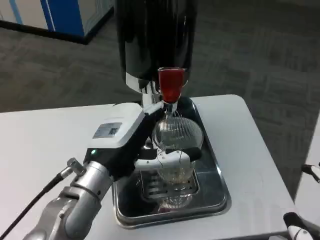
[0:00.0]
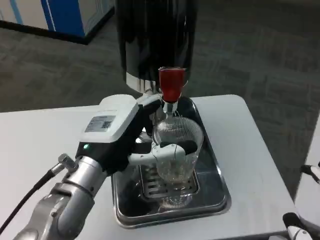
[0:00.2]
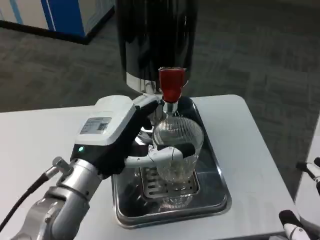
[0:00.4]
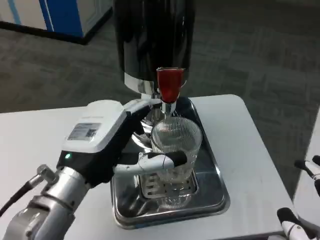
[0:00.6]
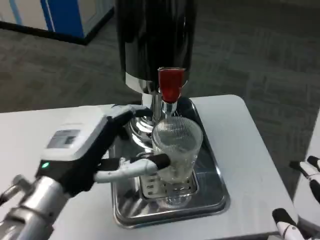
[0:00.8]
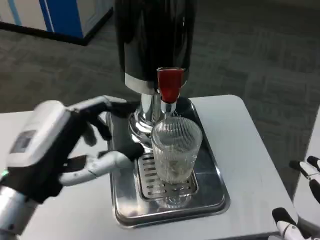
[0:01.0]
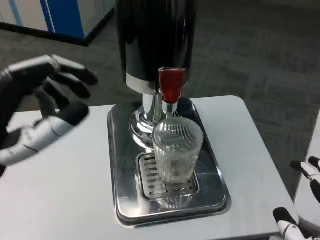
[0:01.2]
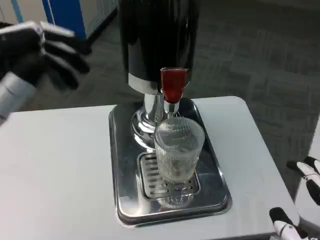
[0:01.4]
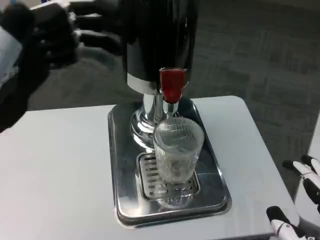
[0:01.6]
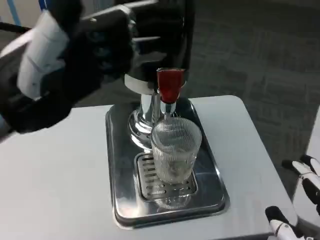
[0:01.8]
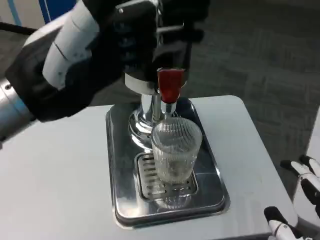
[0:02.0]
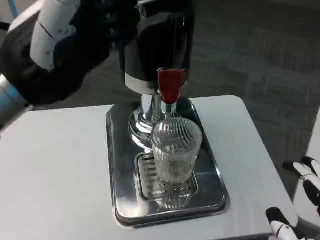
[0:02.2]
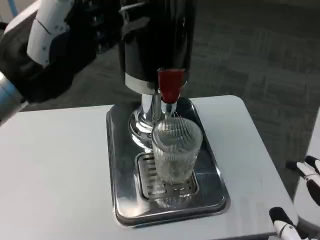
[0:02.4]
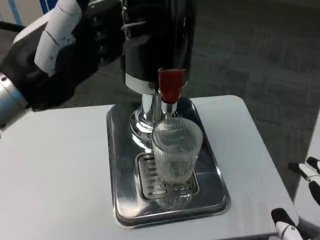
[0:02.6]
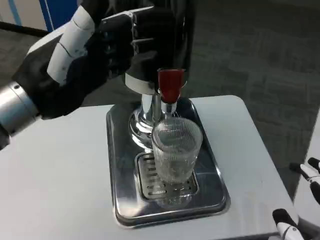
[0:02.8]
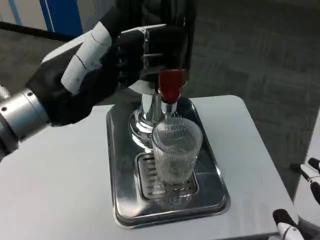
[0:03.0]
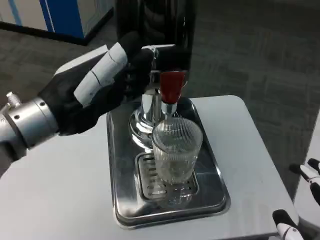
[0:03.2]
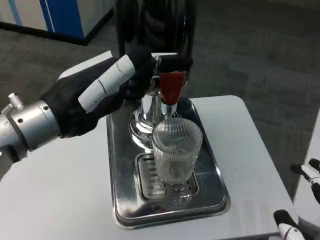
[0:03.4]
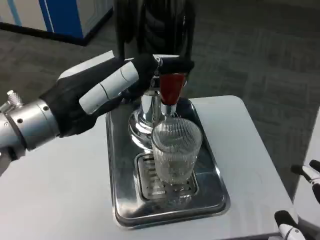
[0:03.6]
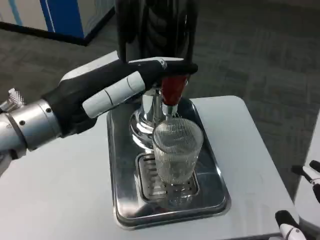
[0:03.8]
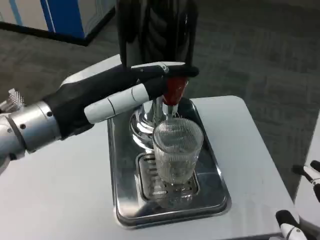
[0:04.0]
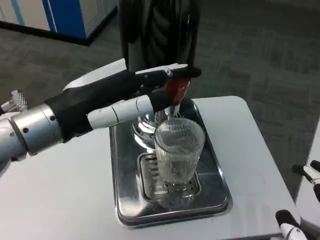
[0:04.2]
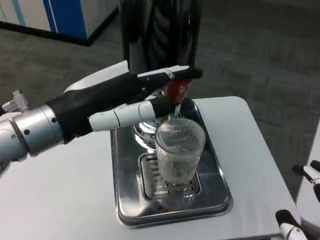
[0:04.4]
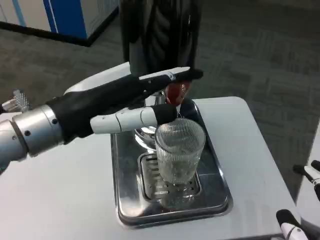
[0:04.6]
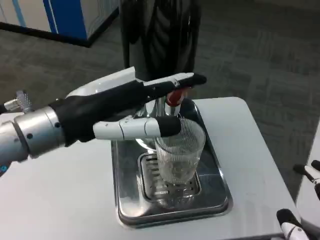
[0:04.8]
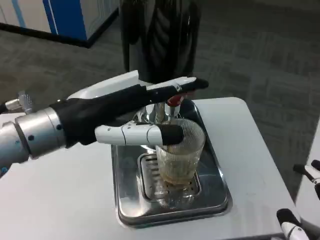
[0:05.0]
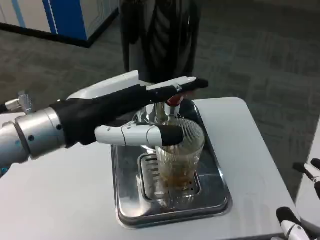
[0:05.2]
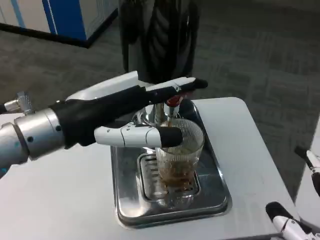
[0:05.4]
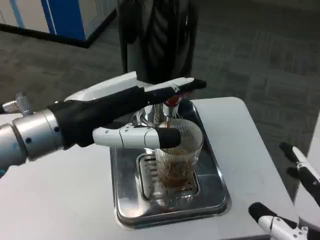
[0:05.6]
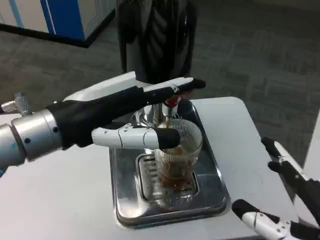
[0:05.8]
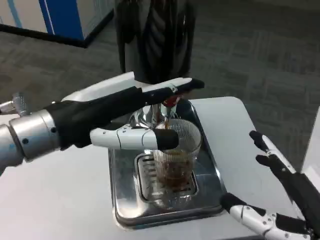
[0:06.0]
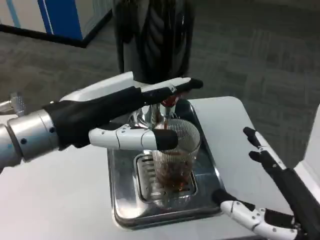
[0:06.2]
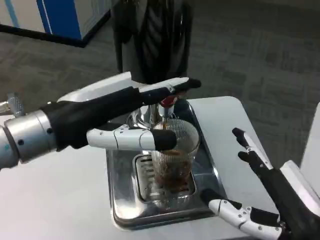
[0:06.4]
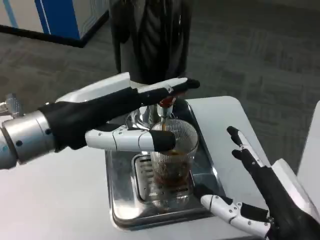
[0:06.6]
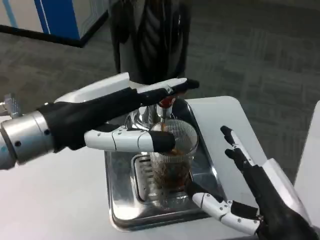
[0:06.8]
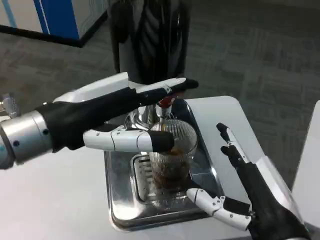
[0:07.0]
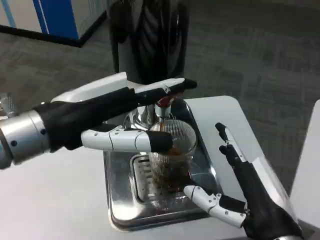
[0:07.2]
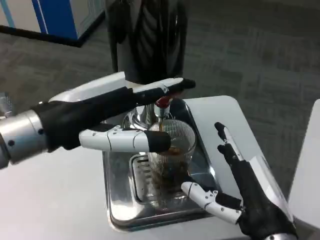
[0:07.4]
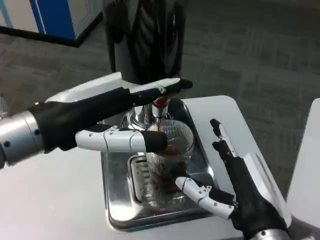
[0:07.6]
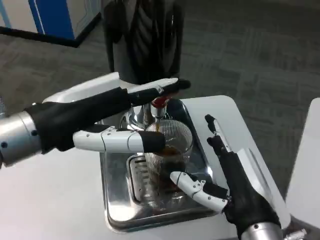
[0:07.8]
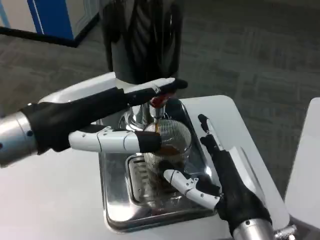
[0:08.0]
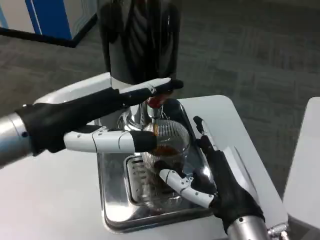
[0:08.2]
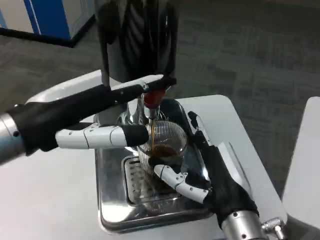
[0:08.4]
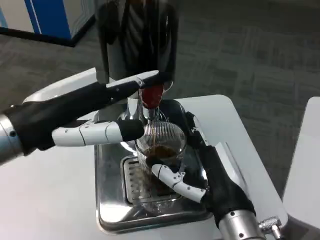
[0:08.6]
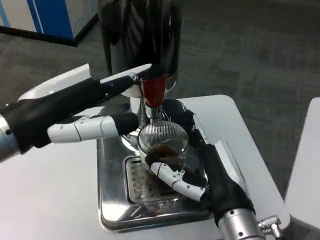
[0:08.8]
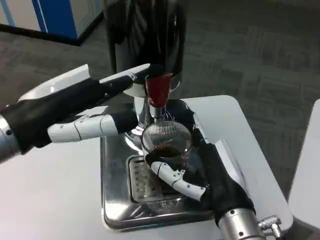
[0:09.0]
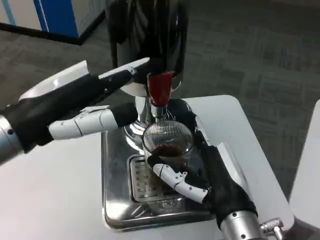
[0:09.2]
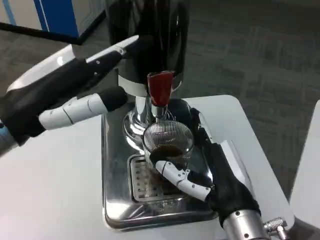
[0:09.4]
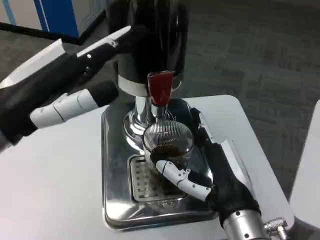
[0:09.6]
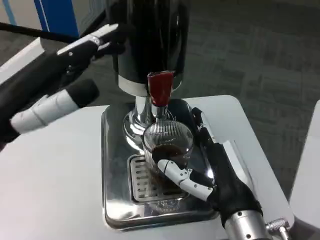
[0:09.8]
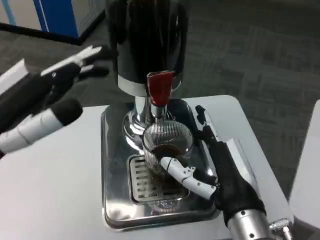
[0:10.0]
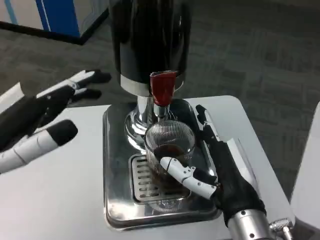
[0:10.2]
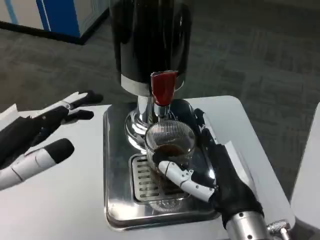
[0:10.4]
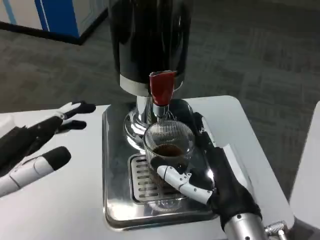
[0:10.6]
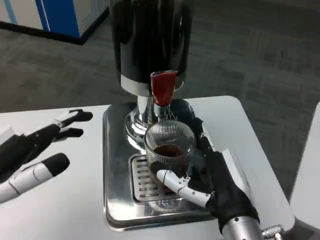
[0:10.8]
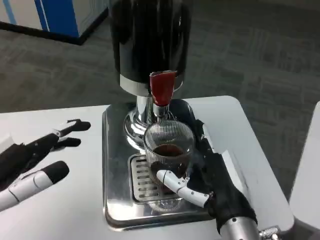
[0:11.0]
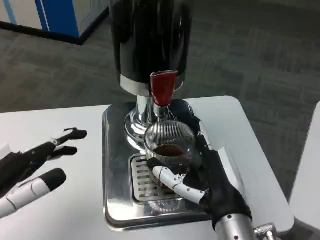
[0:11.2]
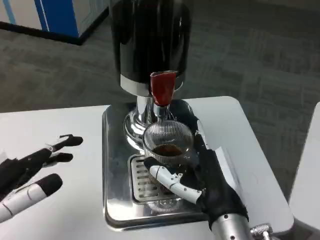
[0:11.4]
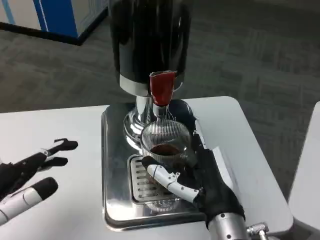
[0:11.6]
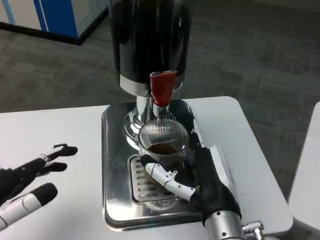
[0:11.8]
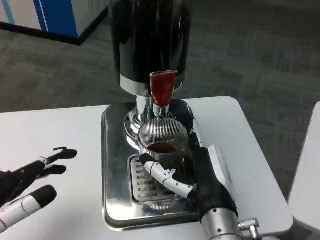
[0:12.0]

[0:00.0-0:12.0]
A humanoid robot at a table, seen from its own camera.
Task of the whole recording: Grasp the cup under the faucet to collect the drink, then remove the cup.
0:00.0 to 0:01.6: The left hand goes some 20 cm upward, to the left and backward.
0:01.6 to 0:03.0: The left hand goes approximately 5 cm forward.
0:04.4 to 0:06.0: The right hand shifts approximately 5 cm forward.
0:06.0 to 0:07.6: The right hand travels to the left and forward by about 10 cm.
0:09.0 to 0:10.4: The left hand moves downward, about 5 cm.
0:10.4 to 0:12.0: The left hand ends up roughly 5 cm from where it was.

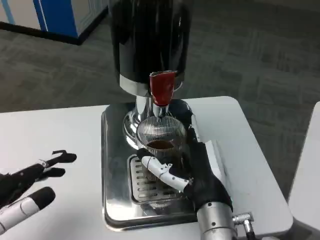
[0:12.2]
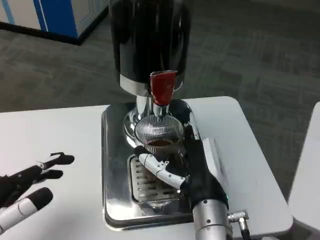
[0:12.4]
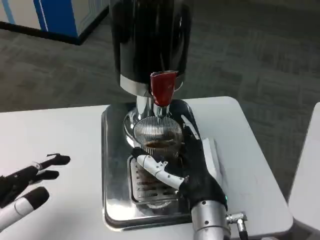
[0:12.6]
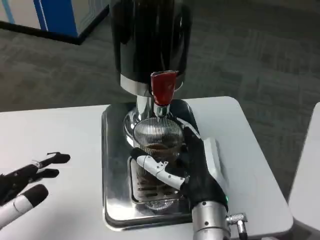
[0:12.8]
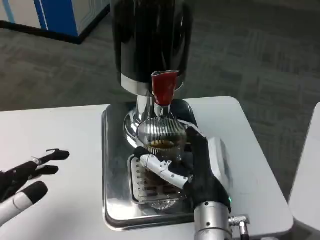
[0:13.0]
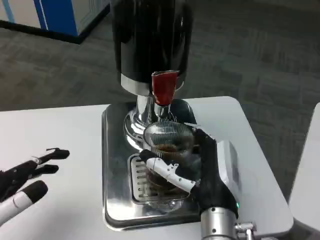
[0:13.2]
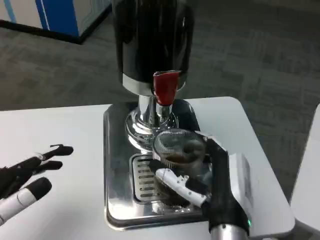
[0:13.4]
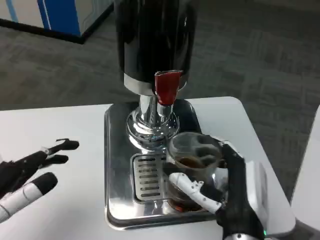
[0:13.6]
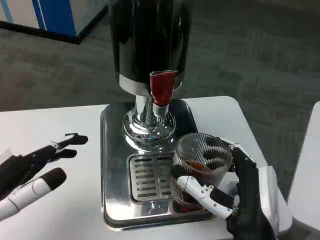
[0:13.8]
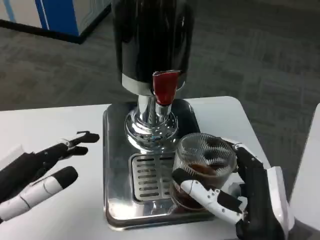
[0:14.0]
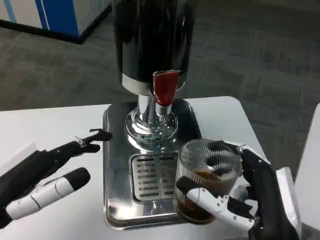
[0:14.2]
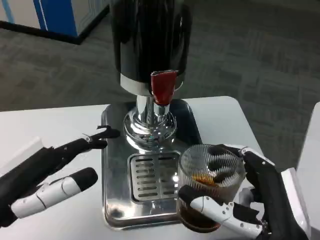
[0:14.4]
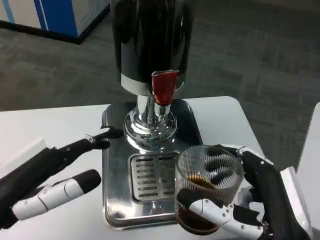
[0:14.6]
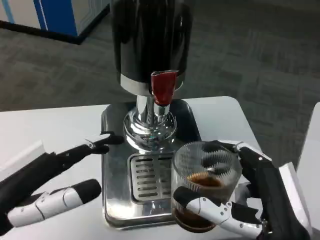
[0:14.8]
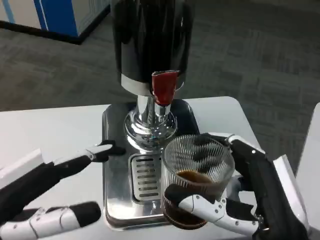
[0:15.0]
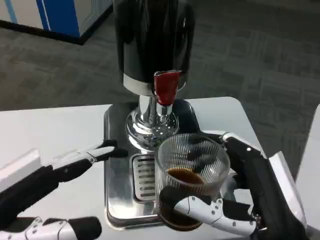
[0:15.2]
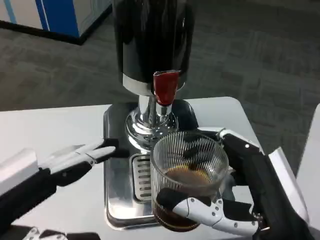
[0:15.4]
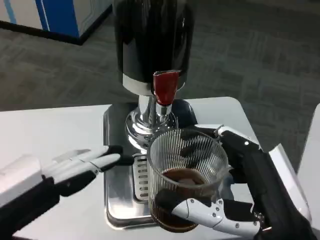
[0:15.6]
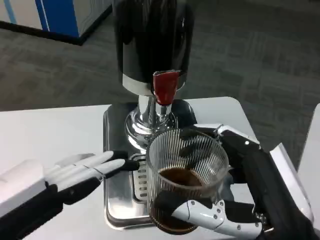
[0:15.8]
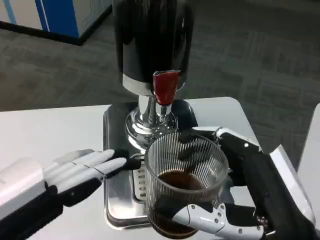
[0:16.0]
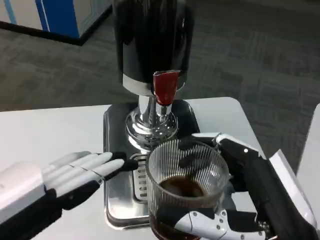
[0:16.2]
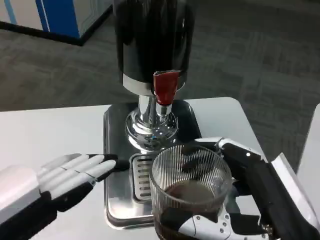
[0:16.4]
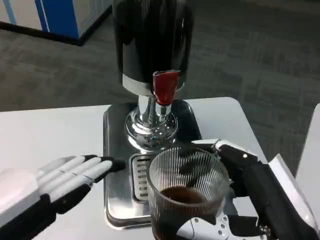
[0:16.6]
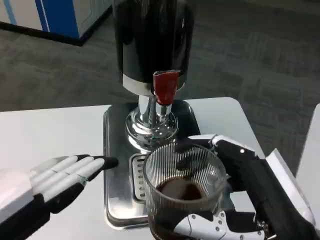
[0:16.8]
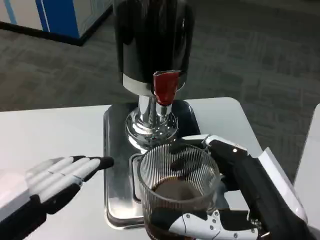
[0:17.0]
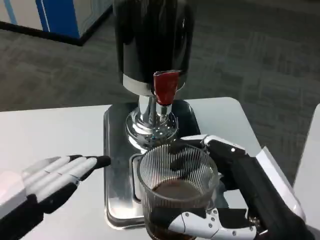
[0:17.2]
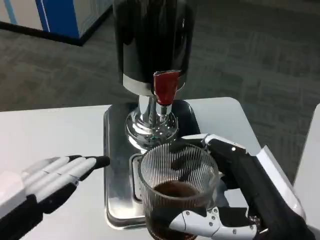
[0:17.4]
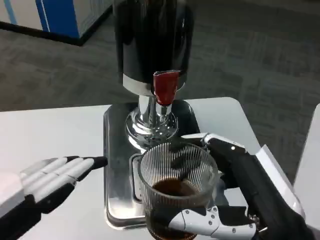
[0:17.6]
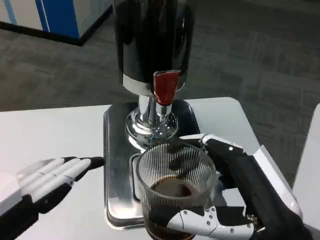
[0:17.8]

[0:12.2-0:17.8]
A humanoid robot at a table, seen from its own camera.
Task of the whole recording: Grasp the cup under the faucet to collect the drink, then remove the cup.
0:13.6 to 0:15.0: The left hand ends up about 5 cm from where it was. Meanwhile the right hand moves backward, roughly 5 cm.
0:15.0 to 0:16.4: The left hand travels backward by approximately 5 cm.
0:16.4 to 0:17.8: The hands make only small movements.
